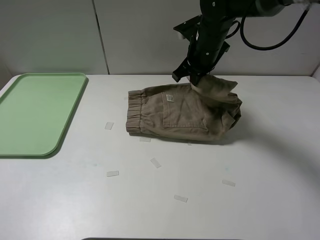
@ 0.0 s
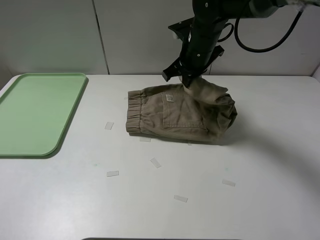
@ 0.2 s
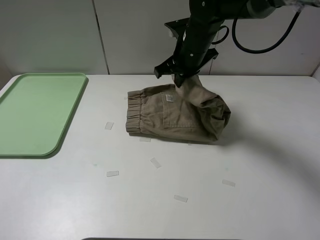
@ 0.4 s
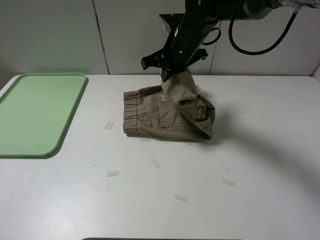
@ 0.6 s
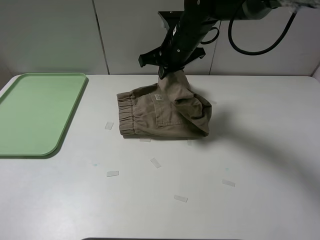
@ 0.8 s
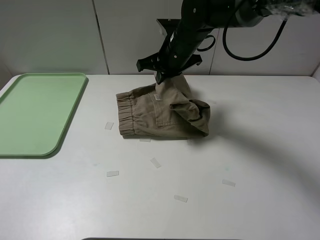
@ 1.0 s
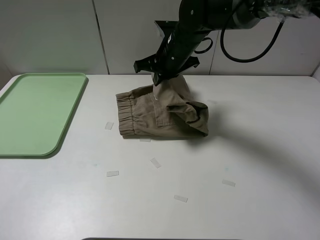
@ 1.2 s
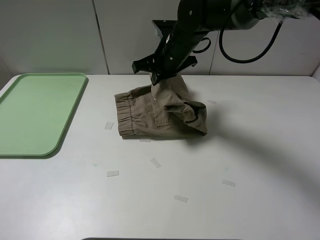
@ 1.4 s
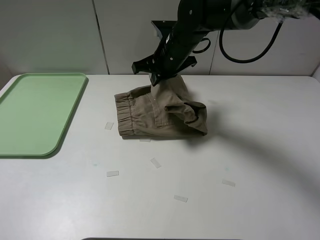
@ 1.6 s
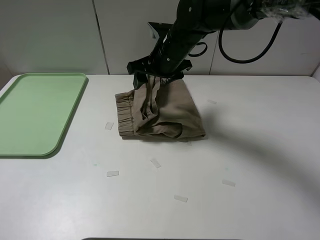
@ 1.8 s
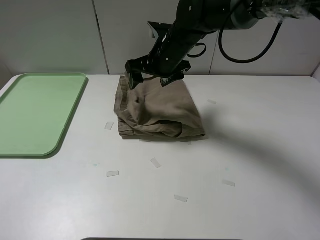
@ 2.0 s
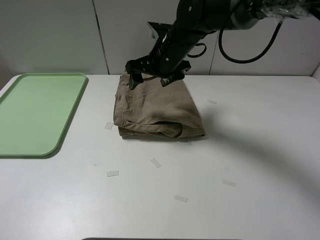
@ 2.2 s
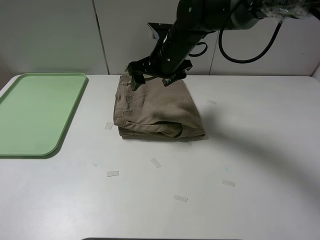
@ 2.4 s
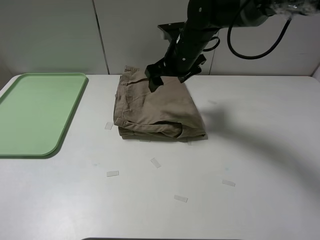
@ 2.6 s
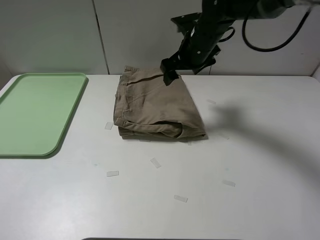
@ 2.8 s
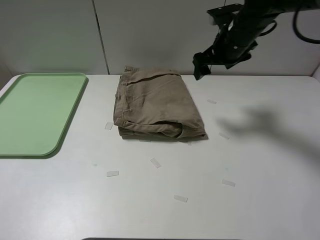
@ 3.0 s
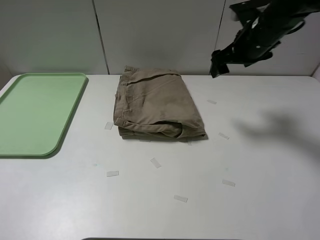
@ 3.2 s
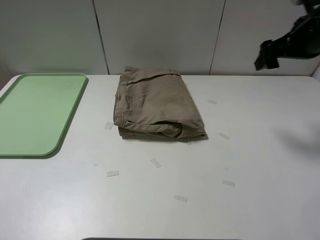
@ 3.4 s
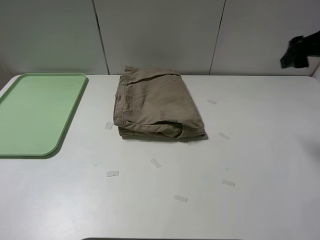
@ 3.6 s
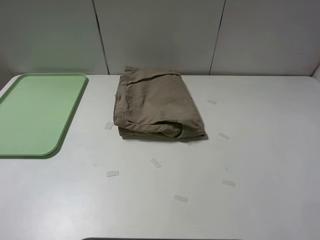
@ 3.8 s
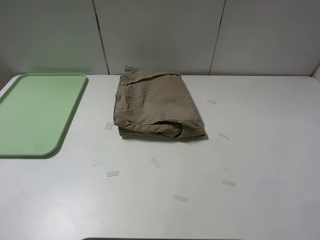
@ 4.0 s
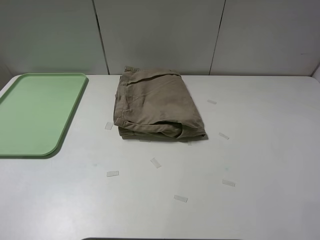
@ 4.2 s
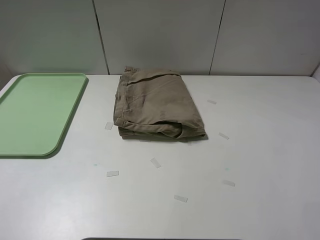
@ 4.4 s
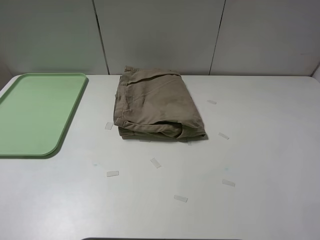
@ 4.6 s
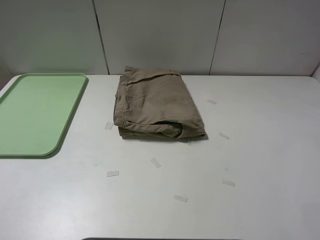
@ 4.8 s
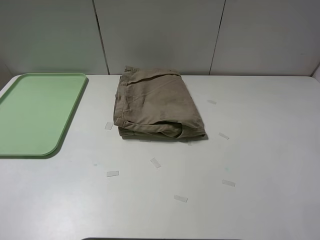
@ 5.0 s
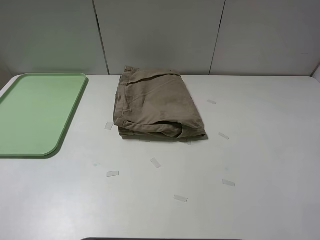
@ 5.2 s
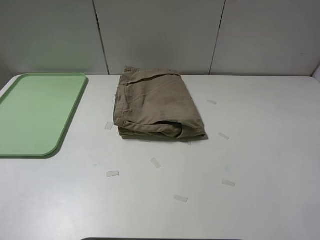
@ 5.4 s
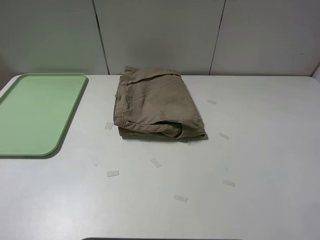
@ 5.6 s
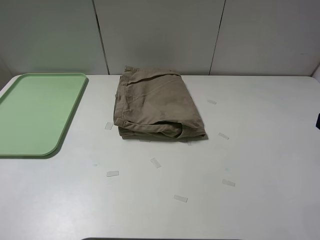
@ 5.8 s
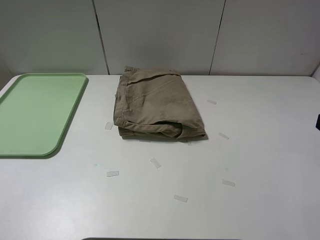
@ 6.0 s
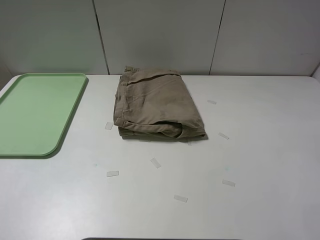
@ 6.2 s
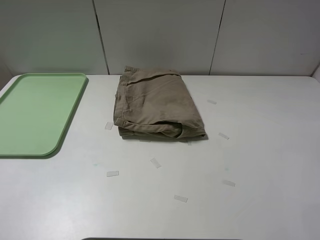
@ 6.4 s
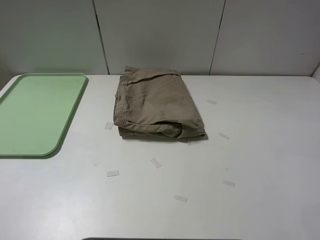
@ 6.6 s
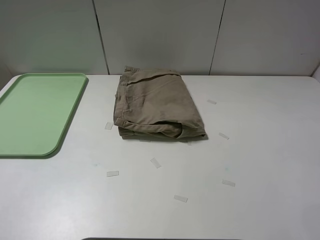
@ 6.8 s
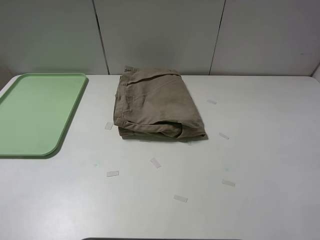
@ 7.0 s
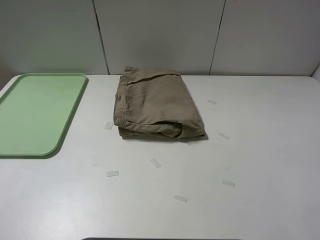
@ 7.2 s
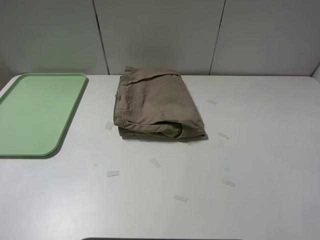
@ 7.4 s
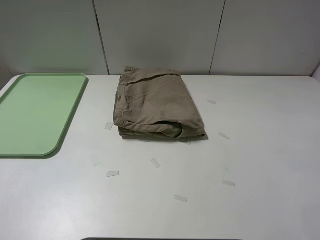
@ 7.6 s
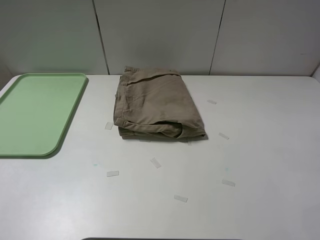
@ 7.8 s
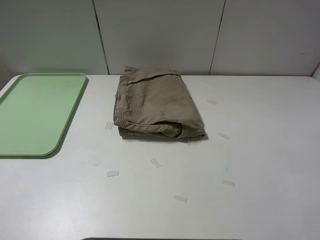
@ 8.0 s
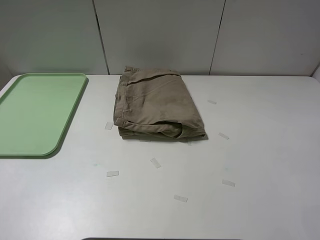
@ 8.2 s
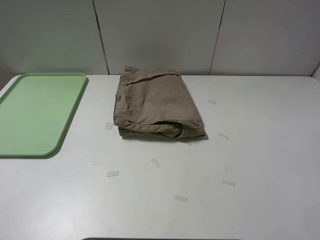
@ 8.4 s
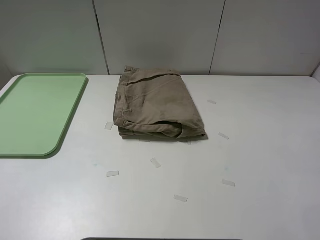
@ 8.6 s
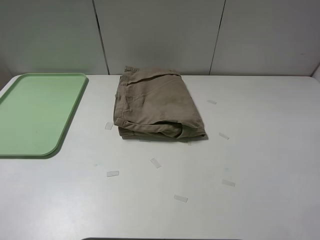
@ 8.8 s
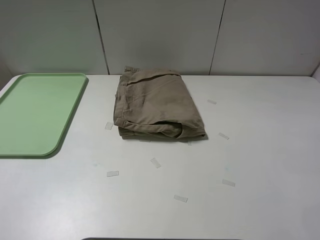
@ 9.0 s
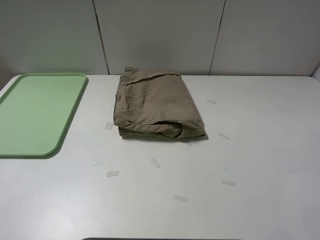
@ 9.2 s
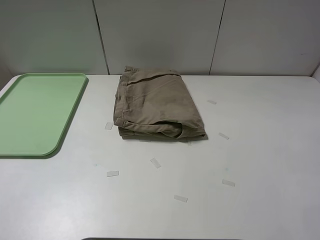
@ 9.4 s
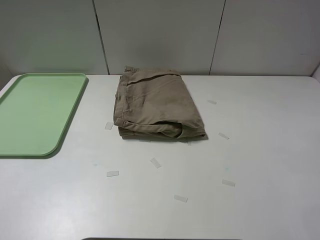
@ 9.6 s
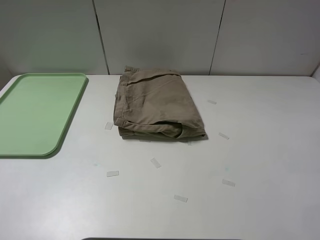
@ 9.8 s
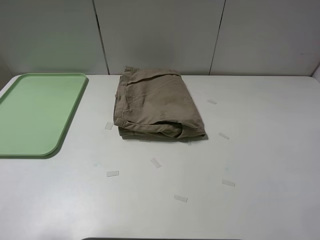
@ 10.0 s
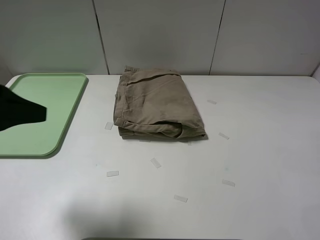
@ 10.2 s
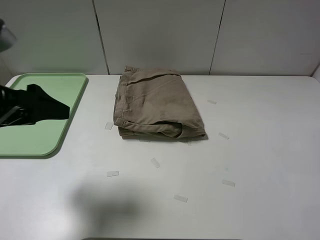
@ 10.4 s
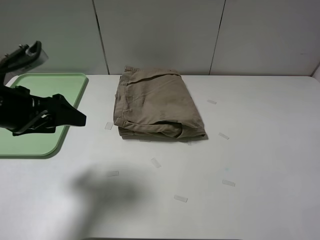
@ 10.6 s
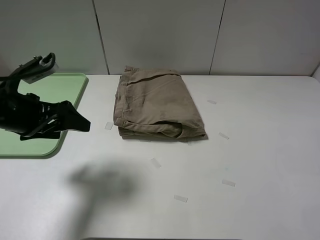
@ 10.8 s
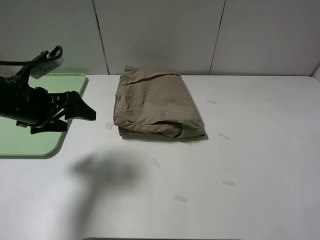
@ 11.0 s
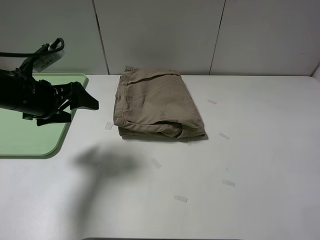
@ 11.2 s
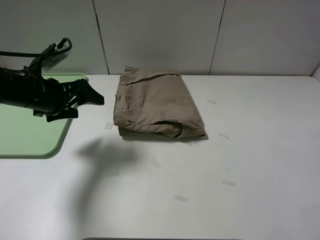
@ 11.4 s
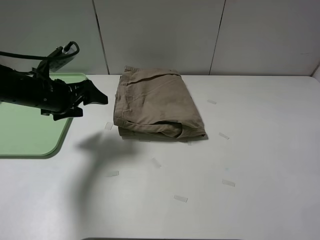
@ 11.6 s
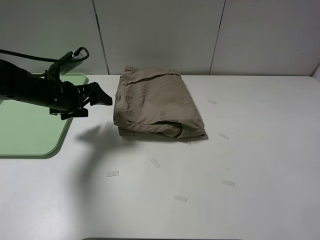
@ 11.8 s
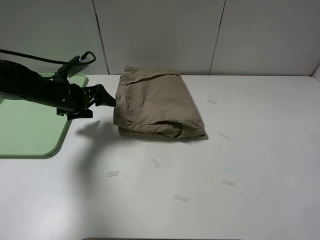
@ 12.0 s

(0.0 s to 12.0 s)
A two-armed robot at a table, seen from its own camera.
Task of the whole recording: fold the khaki jeans in half with two grippers, then fold them in half again, and use the left claw to place the folded fold khaki jeans on the tray.
Step, 0.0 s - 2.0 s: Fold the khaki trousers from right to left with the right gripper.
0.0 s - 1.6 s: The right gripper shifts roughly 5 cm to the left.
1.6 s - 3.0 s: The right gripper moves to the right, roughly 15 cm, and opens its fingers.
3.0 s - 4.4 s: The right gripper is displaced backward, to the right and upward by some 35 cm.
9.0 s - 10.4 s: The left gripper goes roughly 20 cm forward.
10.4 s - 12.0 s: The left gripper moves forward and downward, about 20 cm.

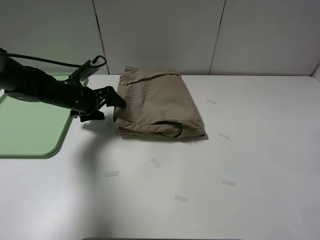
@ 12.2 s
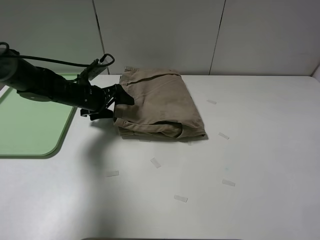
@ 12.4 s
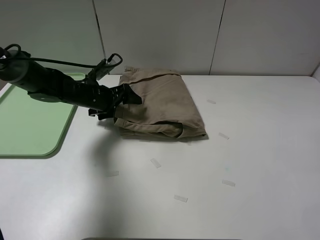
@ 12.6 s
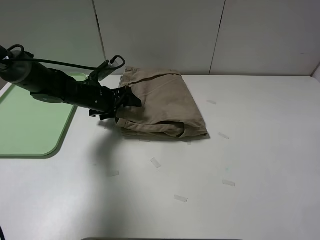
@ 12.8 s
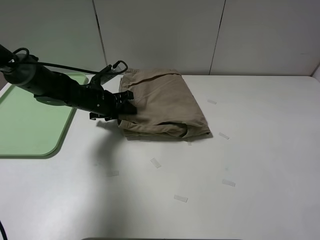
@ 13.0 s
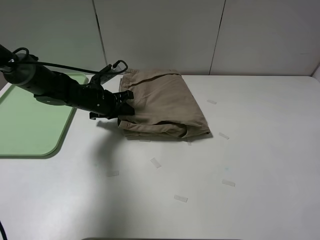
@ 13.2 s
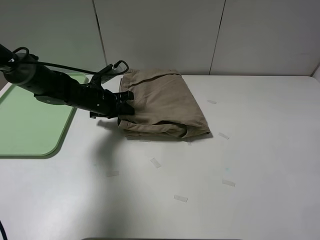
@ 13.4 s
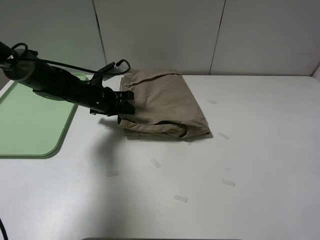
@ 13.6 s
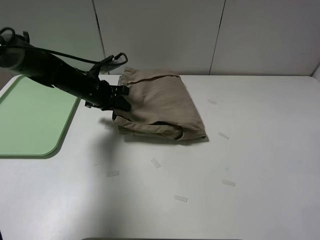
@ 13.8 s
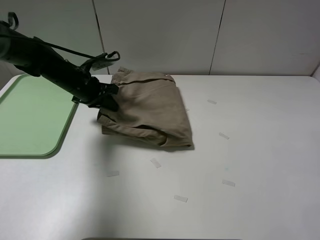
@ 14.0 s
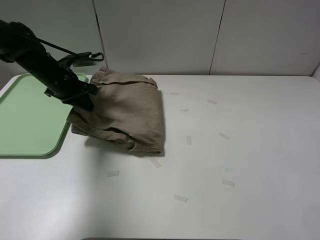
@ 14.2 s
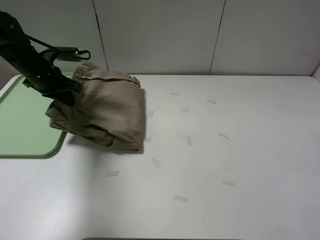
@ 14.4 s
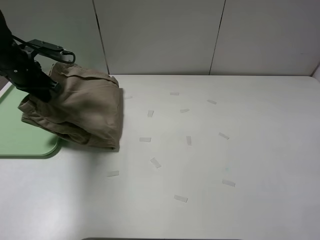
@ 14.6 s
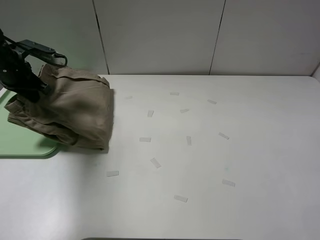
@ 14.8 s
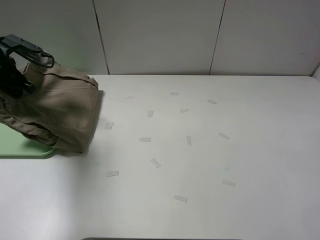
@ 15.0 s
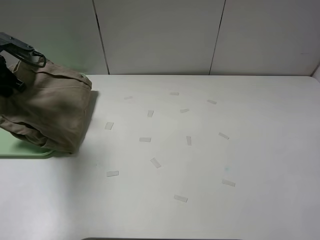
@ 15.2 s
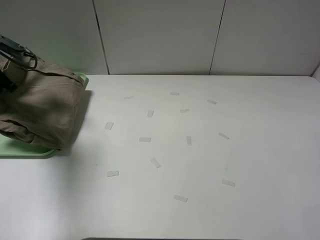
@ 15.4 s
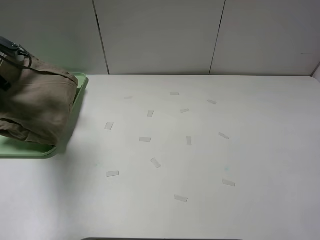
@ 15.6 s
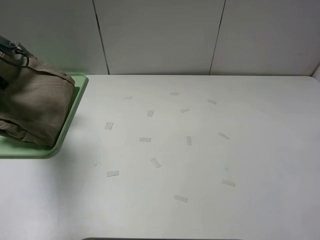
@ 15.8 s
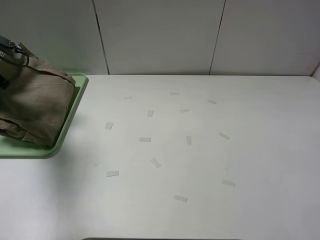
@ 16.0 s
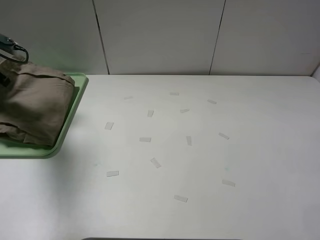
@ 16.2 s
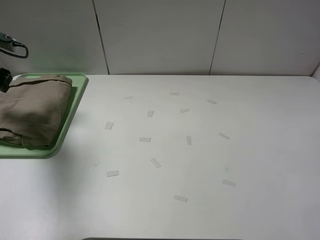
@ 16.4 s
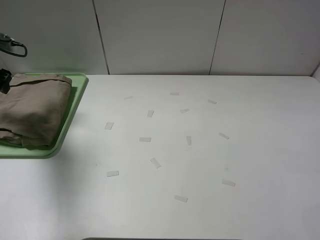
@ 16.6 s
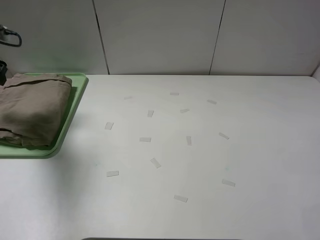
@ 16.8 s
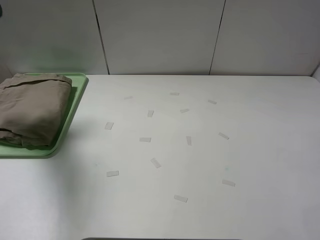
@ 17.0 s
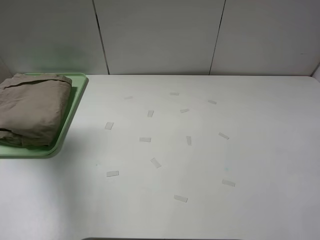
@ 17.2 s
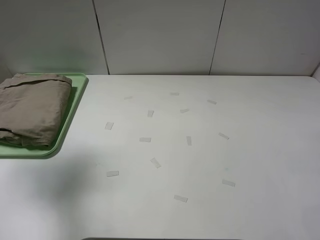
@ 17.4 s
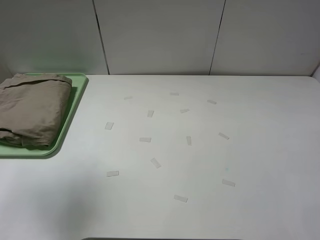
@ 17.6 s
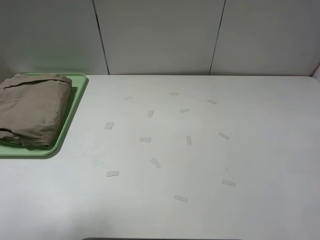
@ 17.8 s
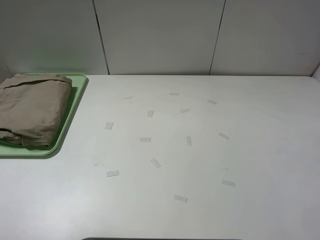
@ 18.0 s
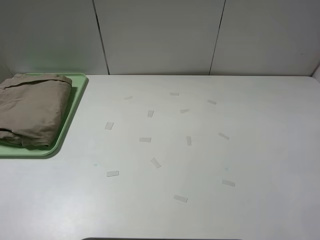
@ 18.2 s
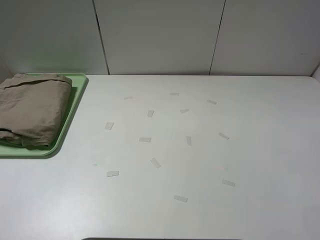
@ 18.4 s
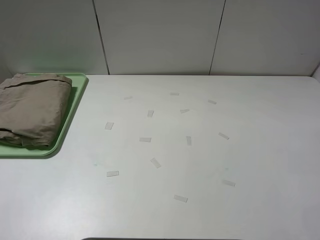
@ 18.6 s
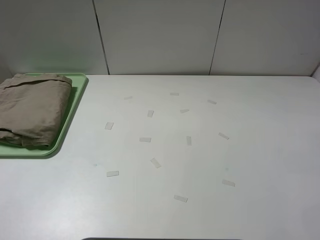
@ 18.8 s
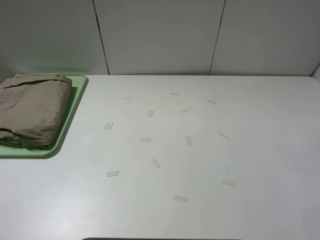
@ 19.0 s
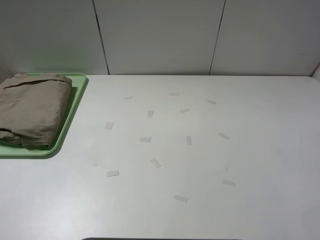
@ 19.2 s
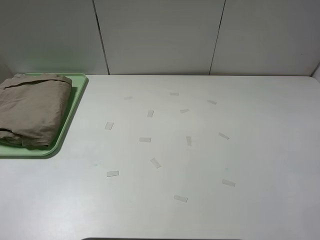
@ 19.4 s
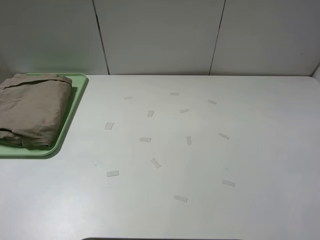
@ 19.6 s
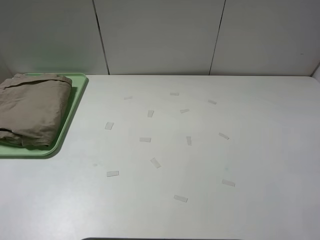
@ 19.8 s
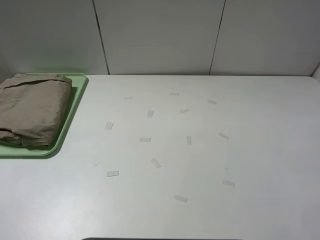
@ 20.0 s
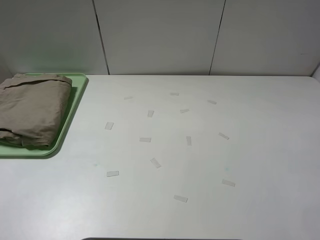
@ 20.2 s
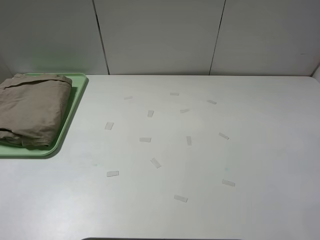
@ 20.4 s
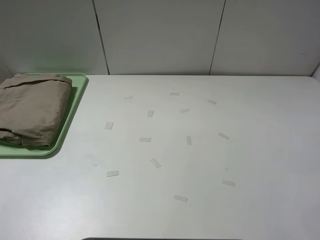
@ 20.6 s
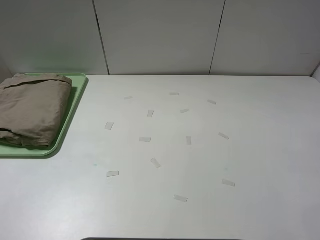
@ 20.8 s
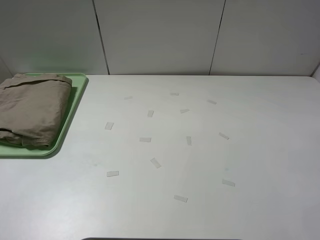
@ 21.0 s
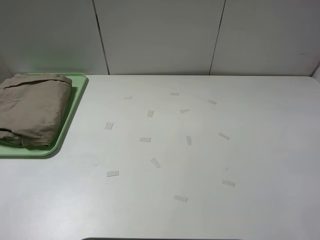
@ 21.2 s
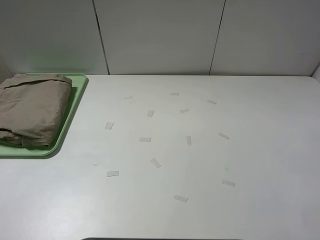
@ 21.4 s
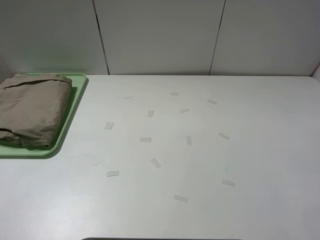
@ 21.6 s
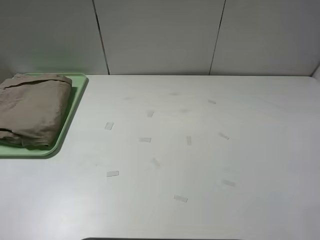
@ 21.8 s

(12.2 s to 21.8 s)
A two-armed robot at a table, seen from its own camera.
Task of the whole recording: fold the khaki jeans in half with two grippers, then fold them in half again, and use the left claw to place the folded fold khaki jeans on the tray.
Step, 13.4 s - 16.4 s: Place the folded khaki trousers on the green tray with the left gripper.
12.2 s - 13.8 s: The left gripper closes its fingers.
13.8 s - 15.4 s: The left gripper goes roughly 25 cm to the left and upward.
15.4 s - 17.0 s: The left gripper moves upward, approximately 10 cm, and opens.
17.0 s - 18.6 s: The left gripper travels backward by some 30 cm.
